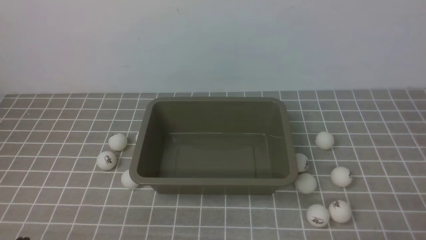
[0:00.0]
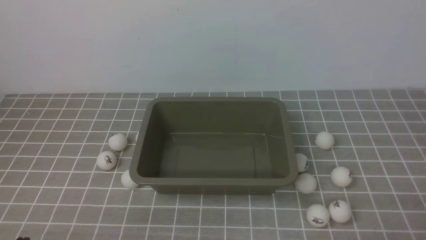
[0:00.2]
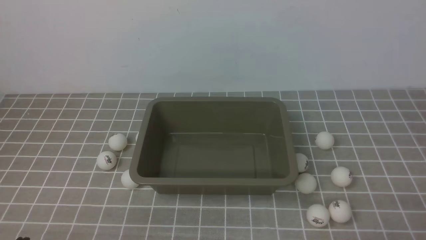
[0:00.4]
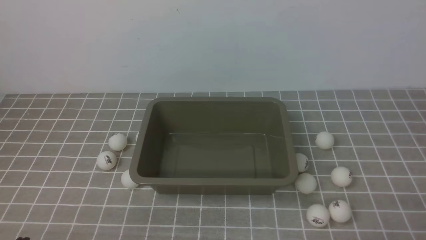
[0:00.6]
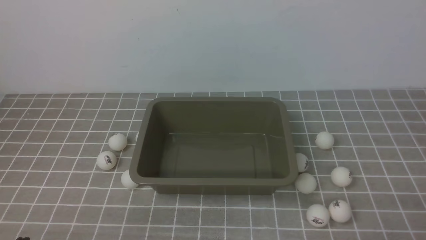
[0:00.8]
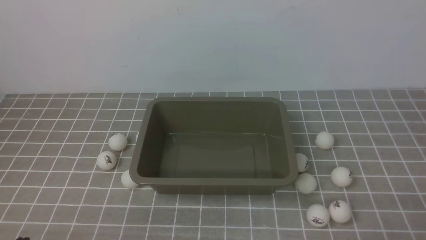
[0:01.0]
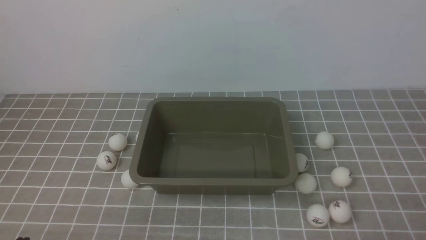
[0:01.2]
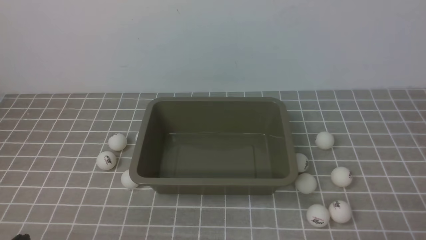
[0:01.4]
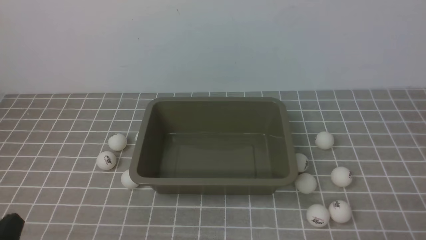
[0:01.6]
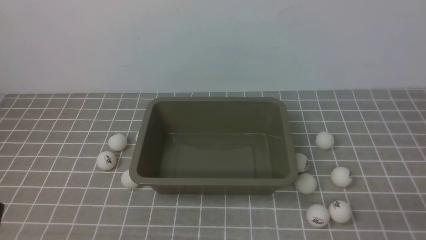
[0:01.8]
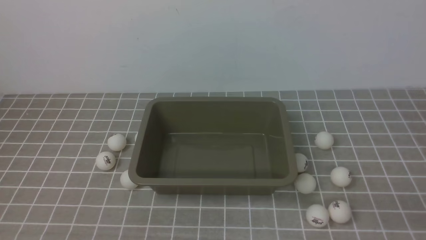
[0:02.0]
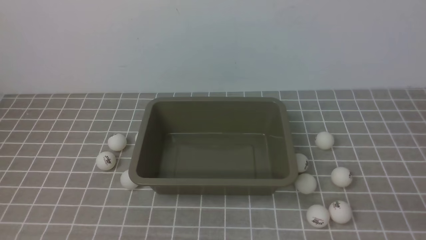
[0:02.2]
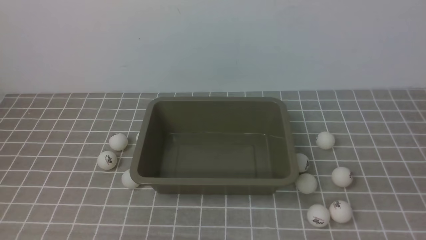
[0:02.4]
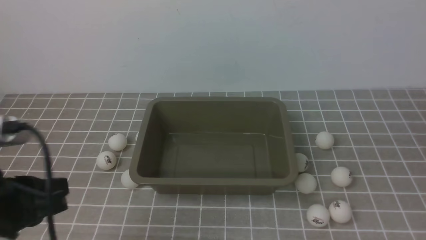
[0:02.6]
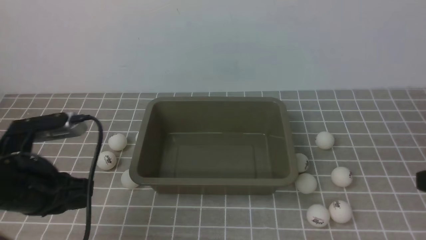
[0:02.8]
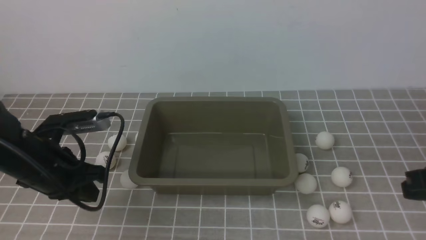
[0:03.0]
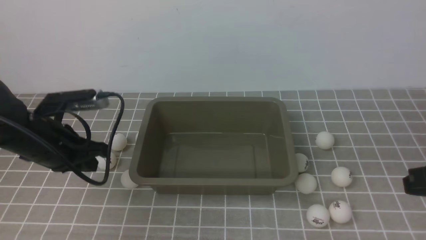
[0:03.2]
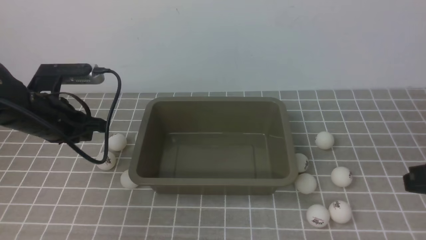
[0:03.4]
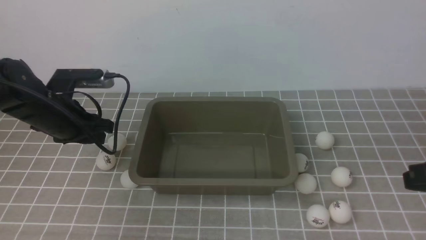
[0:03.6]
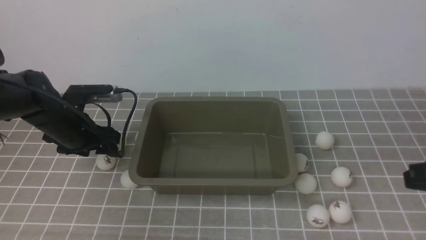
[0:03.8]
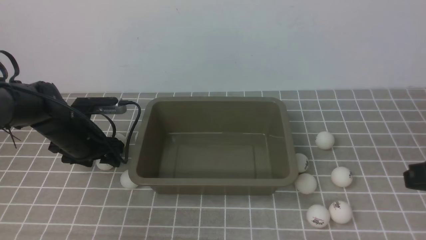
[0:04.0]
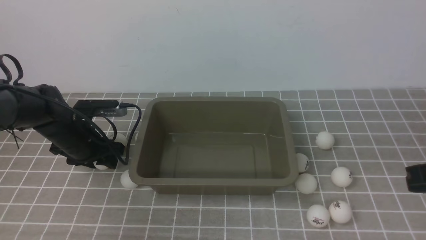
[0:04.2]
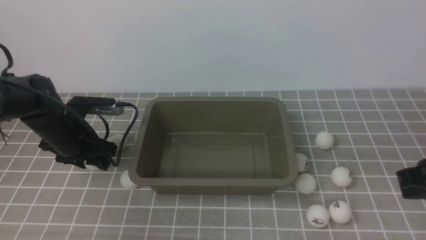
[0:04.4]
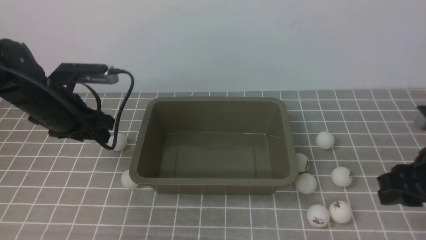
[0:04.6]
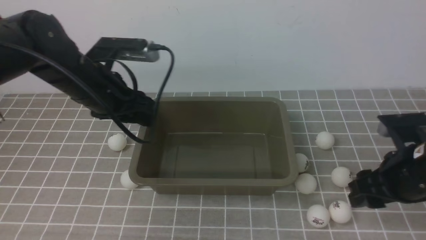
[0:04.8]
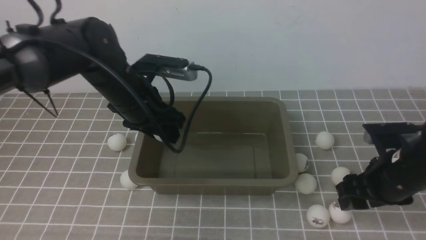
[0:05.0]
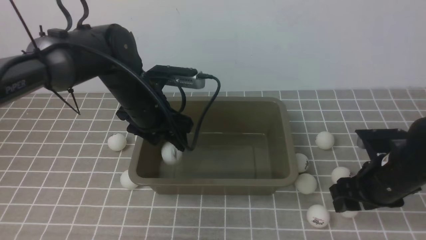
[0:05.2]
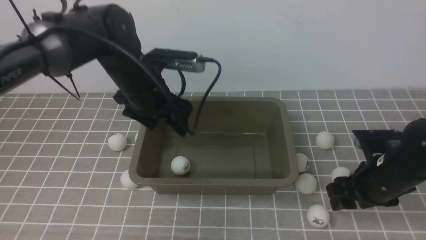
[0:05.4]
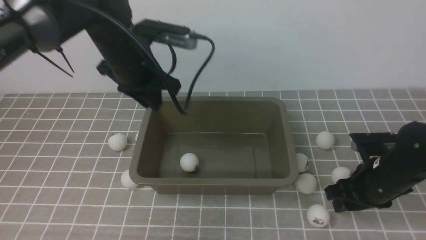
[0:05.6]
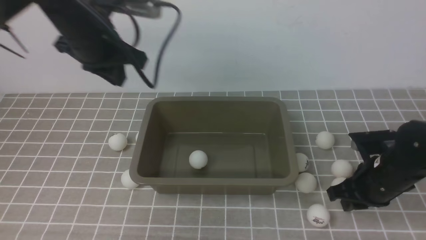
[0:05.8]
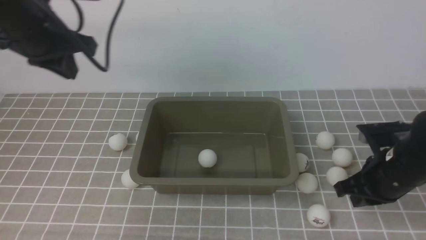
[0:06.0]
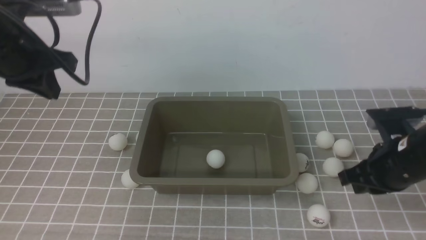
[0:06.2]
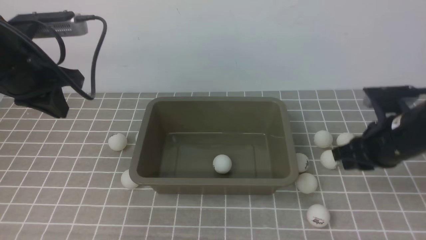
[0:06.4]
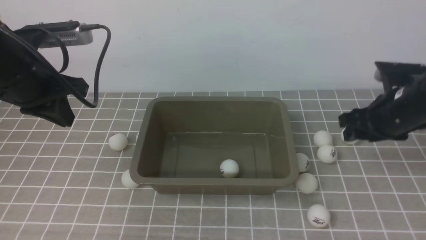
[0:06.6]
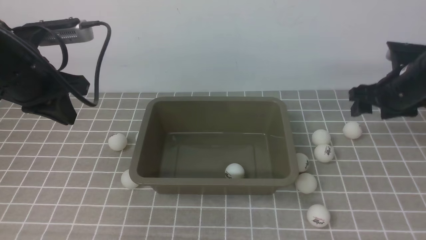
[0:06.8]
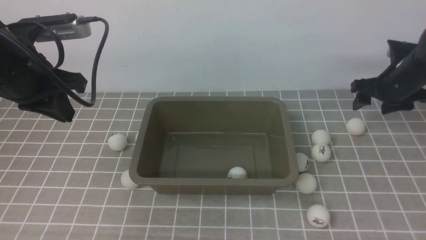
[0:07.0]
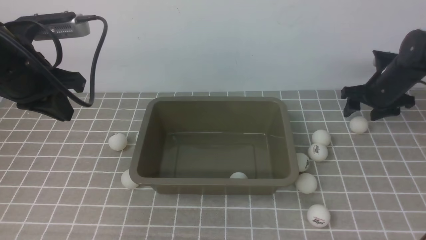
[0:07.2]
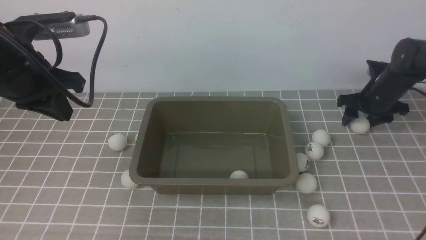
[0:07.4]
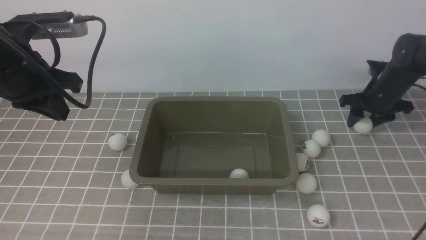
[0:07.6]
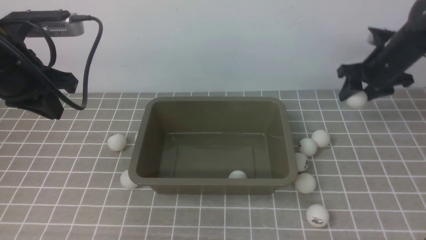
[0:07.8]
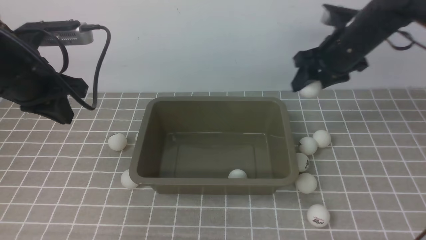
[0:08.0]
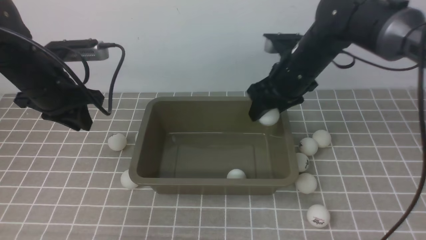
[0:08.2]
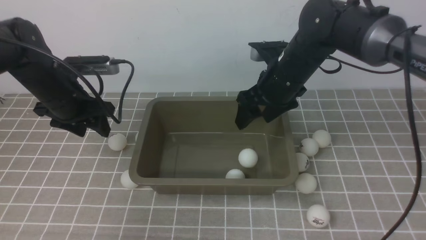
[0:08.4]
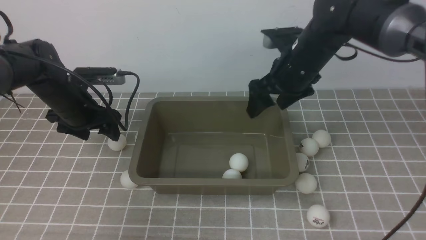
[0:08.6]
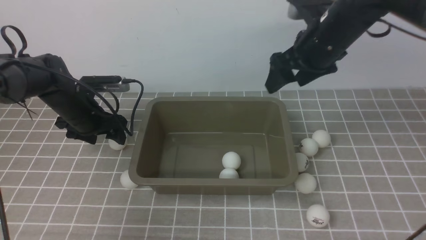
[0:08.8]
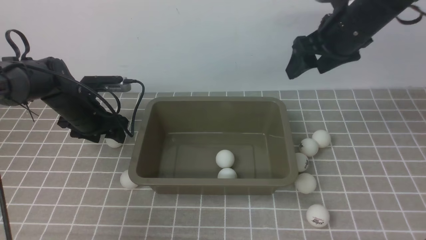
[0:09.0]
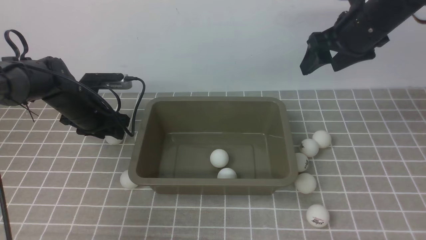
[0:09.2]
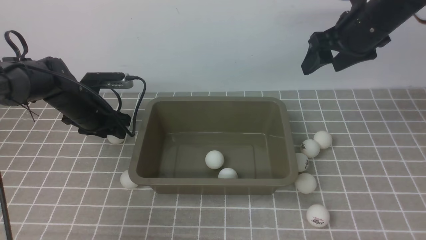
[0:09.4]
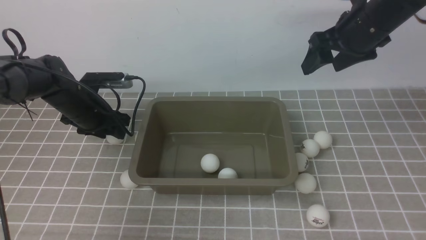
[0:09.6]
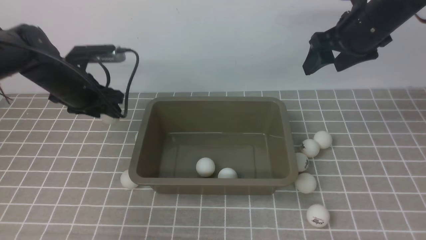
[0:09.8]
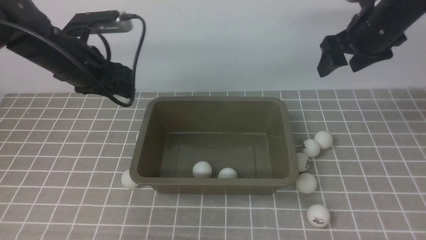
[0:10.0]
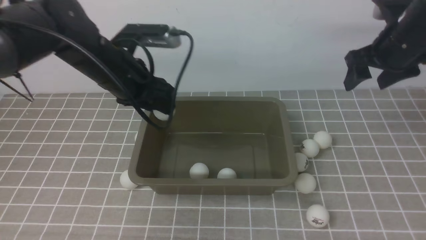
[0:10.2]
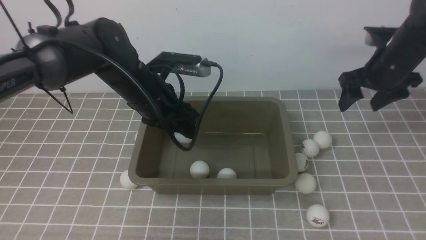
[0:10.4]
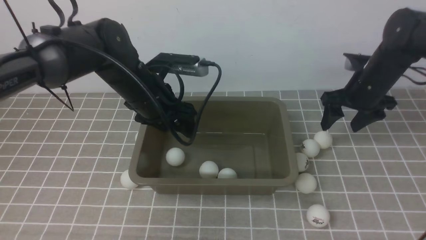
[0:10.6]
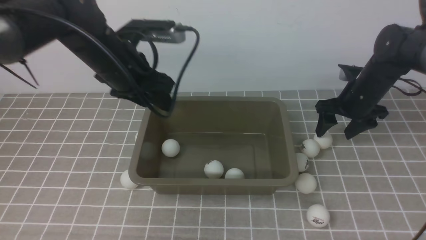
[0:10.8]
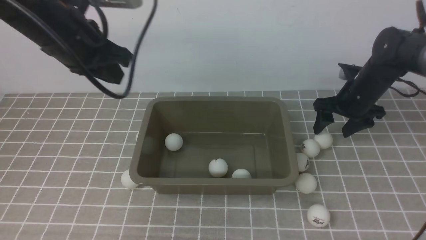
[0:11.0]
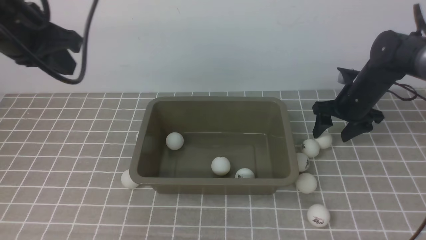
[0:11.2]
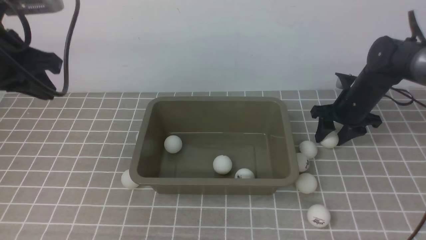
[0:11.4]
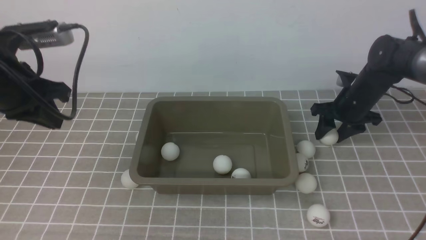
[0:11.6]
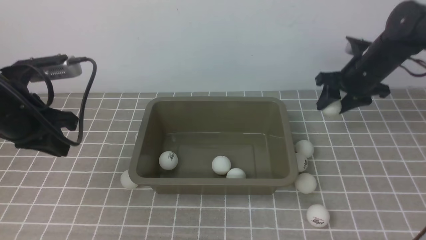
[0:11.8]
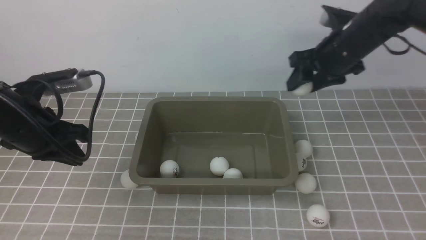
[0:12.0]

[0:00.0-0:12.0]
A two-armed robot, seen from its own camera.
Step, 0:00.0 to 0:04.6: use the left arm to clamp the table tennis ball closest to it.
Step, 0:04.8 to 0:05.2: use the left arm to put the table tennis ball into the box.
Step, 0:05.4 to 0:07.8: use the right arm to clamp the table tennis ball closest to it.
Step, 0:08.0 to 0:08.2: use the right arm to put the table tennis ball into the box.
Step, 0:08.6 to 0:09.6: use the left arm to clamp the table tennis ball closest to it.
Step, 0:10.0 to 0:10.4: use the left arm to put the table tennis ball into the box.
0:01.6 to 0:03.0: The left gripper is displaced forward by approximately 20 cm. Meanwhile the right gripper is displaced upward and forward by roughly 15 cm.
0:03.0 to 0:04.4: The left gripper goes approximately 10 cm forward, and opens up.
0:04.4 to 0:06.0: The right gripper heads downward and forward, covering some 10 cm, and opens and closes again. The left gripper goes about 15 cm upward, and closes up.
0:06.0 to 0:07.6: The right gripper shifts some 20 cm forward, and opens. The left gripper changes place by about 5 cm.
0:07.6 to 0:09.0: The left gripper shifts some 20 cm downward and forward, and opens up. Meanwhile the right gripper shifts about 20 cm upward, to the left and backward.
0:09.0 to 0:10.4: The right gripper is displaced to the right and downward by approximately 10 cm. The left gripper is displaced to the right and upward by about 15 cm.
0:10.4 to 0:12.0: The left gripper is displaced to the left and backward by roughly 15 cm, and closes, while the right gripper moves to the left, approximately 10 cm, and goes downward and returns, roughly 10 cm each way.

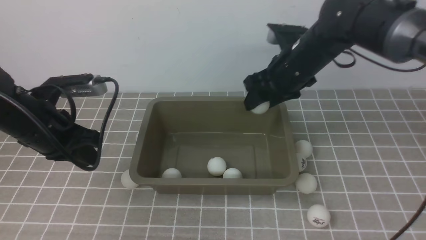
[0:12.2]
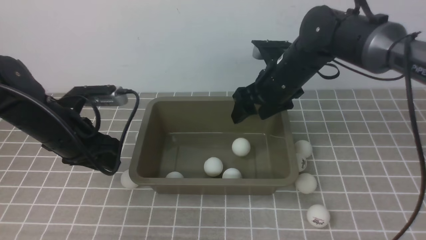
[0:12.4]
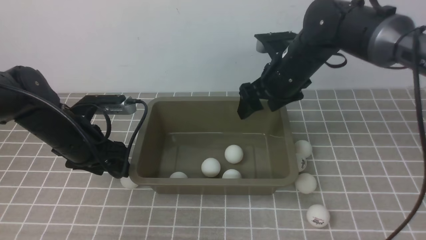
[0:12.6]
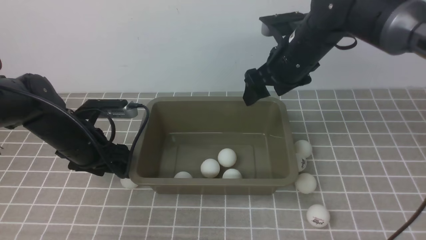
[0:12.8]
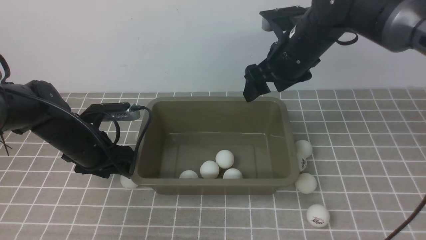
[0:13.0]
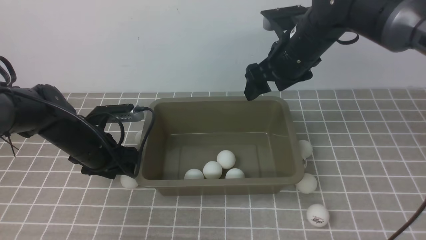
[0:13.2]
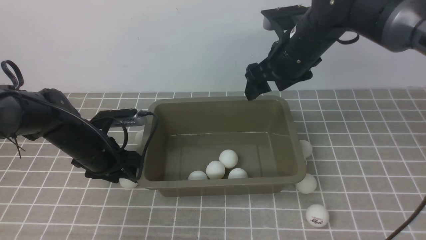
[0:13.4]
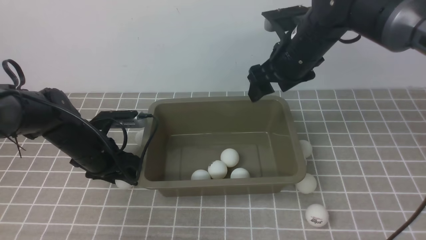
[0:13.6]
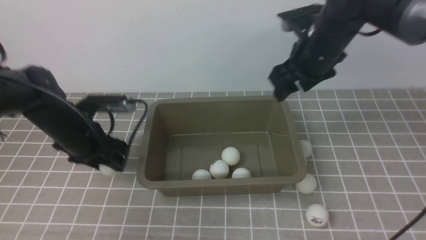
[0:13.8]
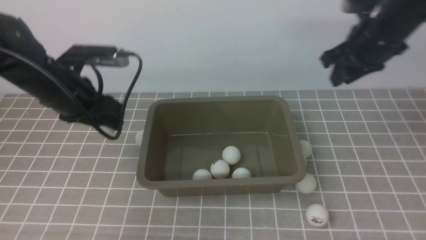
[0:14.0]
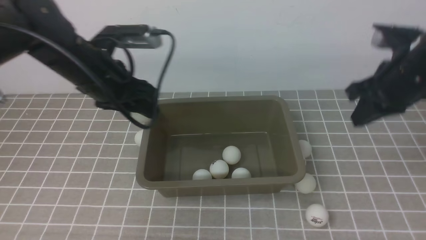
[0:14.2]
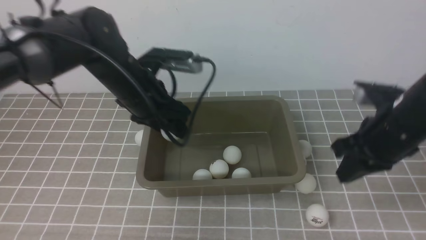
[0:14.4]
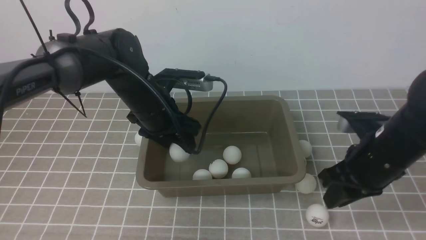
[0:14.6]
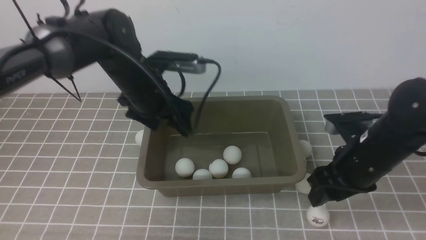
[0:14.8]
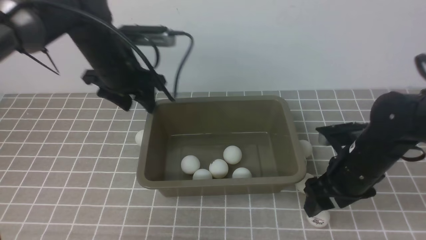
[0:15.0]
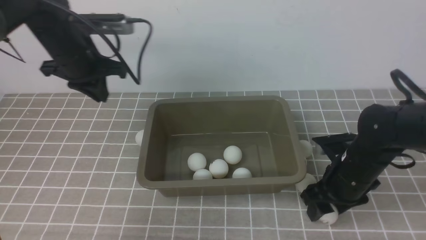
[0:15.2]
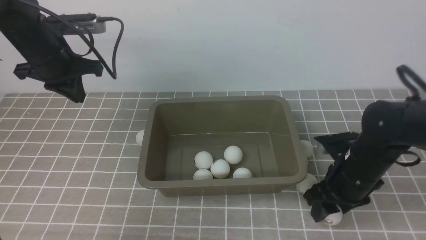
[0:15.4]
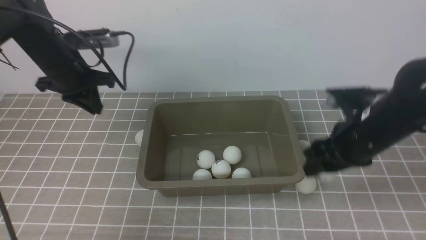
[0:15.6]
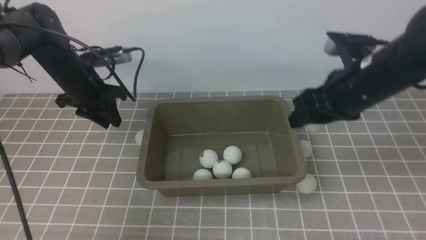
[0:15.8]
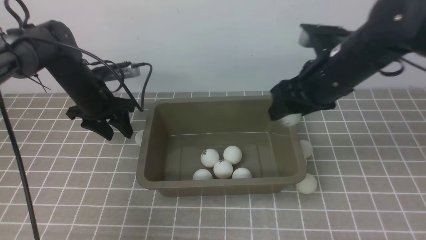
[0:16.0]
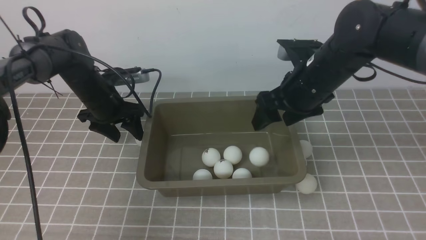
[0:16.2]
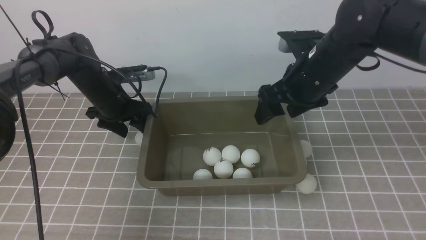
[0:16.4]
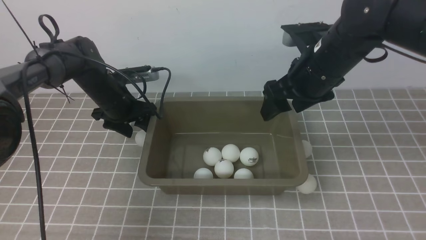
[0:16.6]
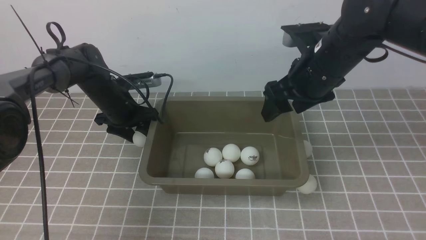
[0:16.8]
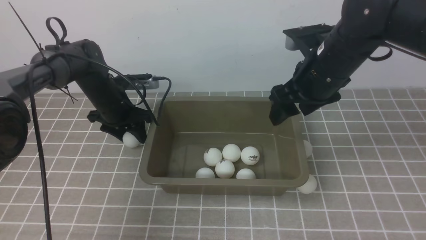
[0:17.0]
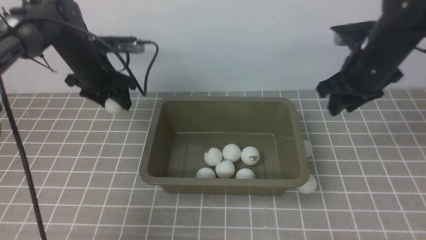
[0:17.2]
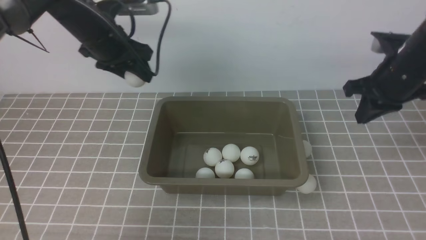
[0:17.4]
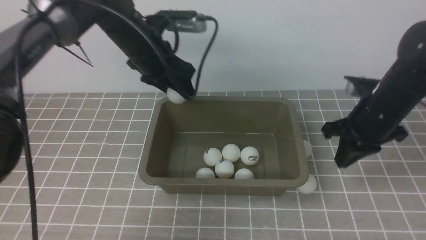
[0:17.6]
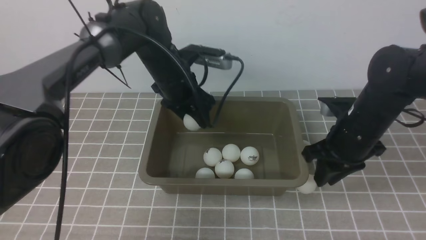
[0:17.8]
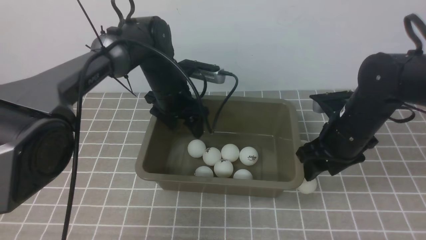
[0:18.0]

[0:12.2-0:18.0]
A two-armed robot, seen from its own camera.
Step, 0:12.8 to 0:14.0: use the left arm to clamp the table tennis ball closest to it.
Step, 0:14.2 to 0:14.6: use the left arm to put the table tennis ball into the box.
Step, 0:14.8 to 0:15.6: use the right arm to clamp the table tennis ball closest to it.
Step, 0:15.8 to 0:16.2: use the right arm to put the table tennis ball into the box.
Step, 0:16.4 to 0:17.0: use the left arm to clamp the table tennis ball closest to it.
Step, 0:17.4 to 0:17.8: use the left arm to put the table tennis ball into the box.
0:12.2 to 0:13.6: The left gripper heads downward, covering some 10 cm, and opens.
0:13.6 to 0:15.0: The left gripper shifts some 15 cm upward and forward. The right gripper heads backward, downward and to the right, covering some 20 cm, and closes, then opens again.
0:15.0 to 0:16.6: The left gripper goes roughly 15 cm downward and forward, and closes, then opens again, while the right gripper is displaced upward, forward and to the left by some 15 cm.
0:16.6 to 0:18.0: The right gripper goes approximately 10 cm downward and to the right, and closes, then opens again. The left gripper travels to the right and upward by some 15 cm.
